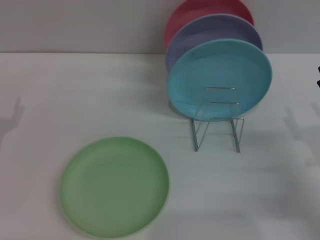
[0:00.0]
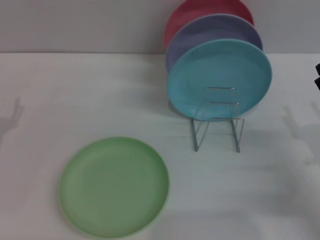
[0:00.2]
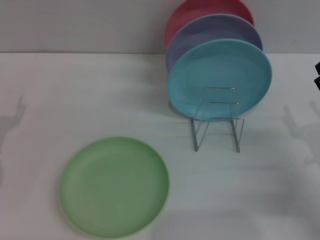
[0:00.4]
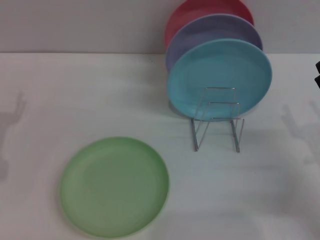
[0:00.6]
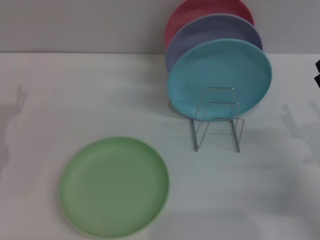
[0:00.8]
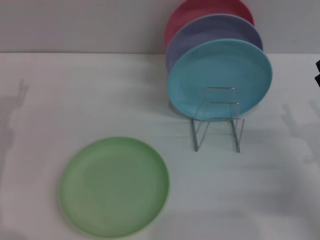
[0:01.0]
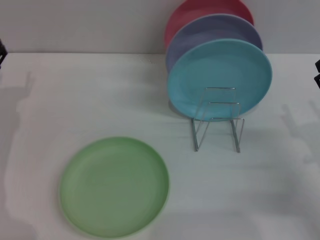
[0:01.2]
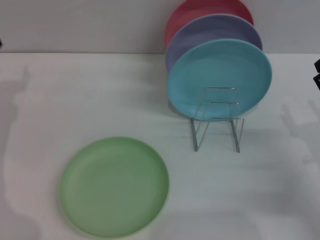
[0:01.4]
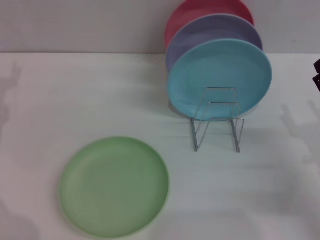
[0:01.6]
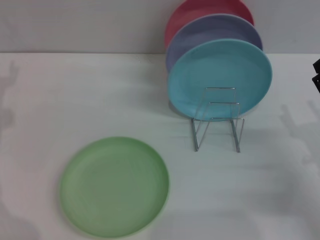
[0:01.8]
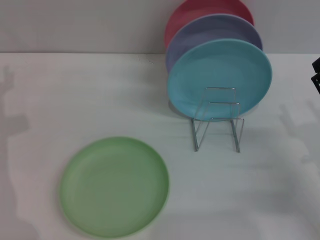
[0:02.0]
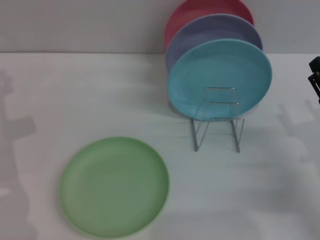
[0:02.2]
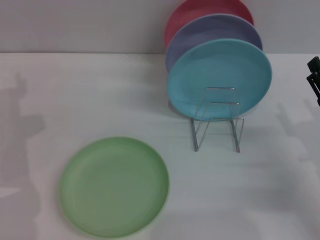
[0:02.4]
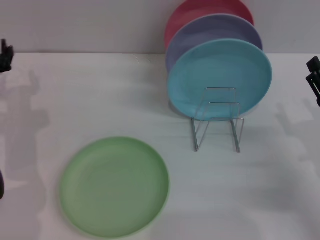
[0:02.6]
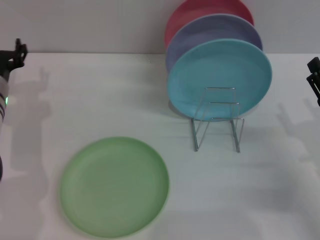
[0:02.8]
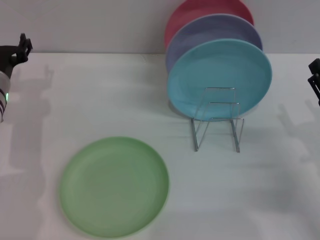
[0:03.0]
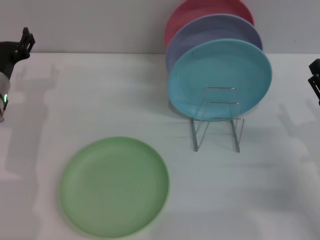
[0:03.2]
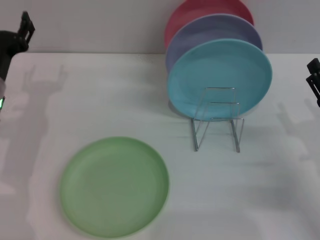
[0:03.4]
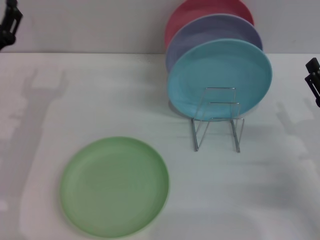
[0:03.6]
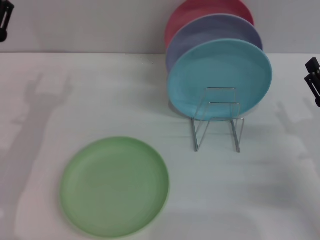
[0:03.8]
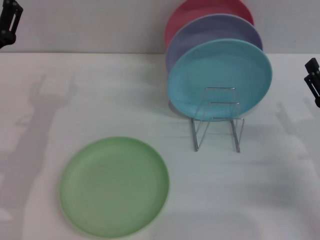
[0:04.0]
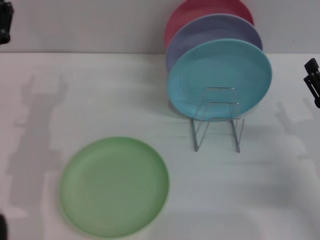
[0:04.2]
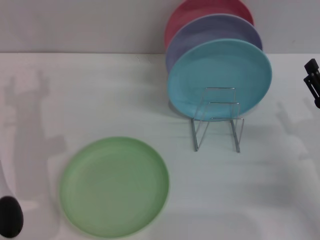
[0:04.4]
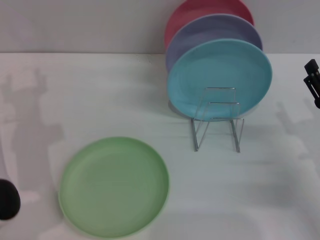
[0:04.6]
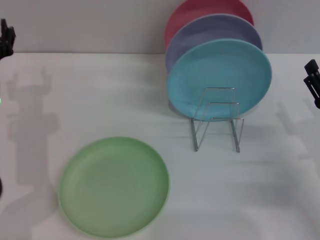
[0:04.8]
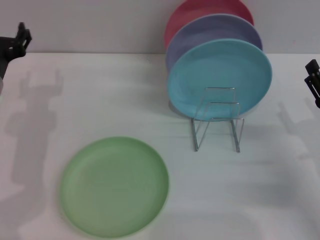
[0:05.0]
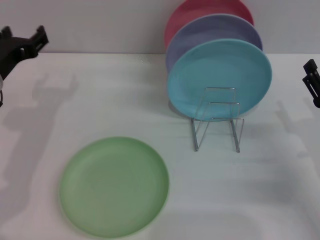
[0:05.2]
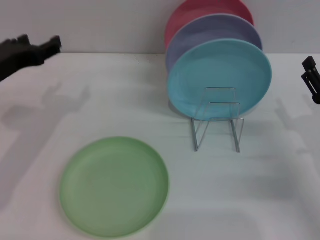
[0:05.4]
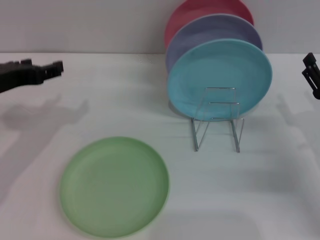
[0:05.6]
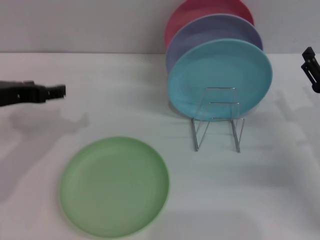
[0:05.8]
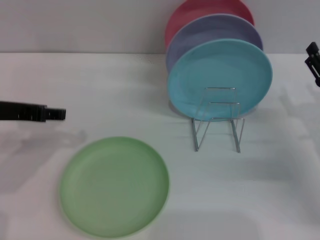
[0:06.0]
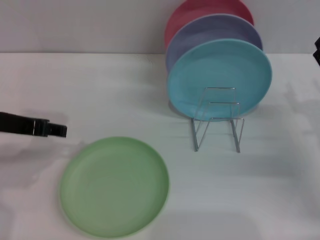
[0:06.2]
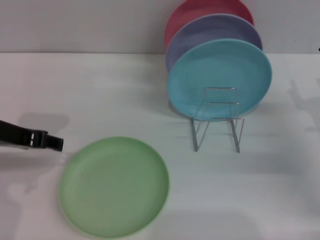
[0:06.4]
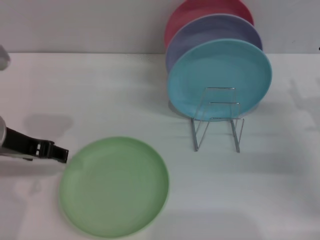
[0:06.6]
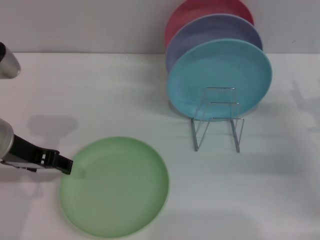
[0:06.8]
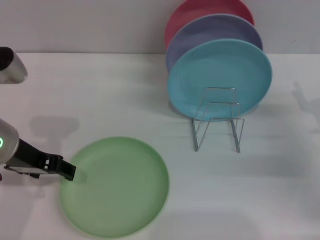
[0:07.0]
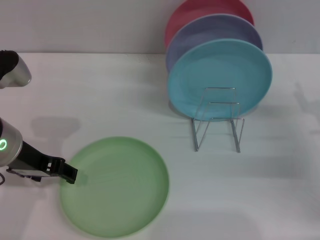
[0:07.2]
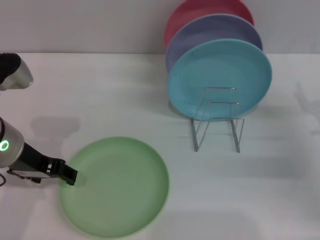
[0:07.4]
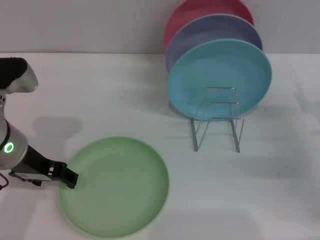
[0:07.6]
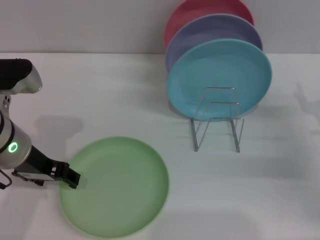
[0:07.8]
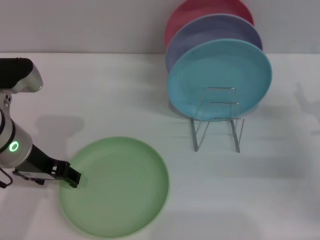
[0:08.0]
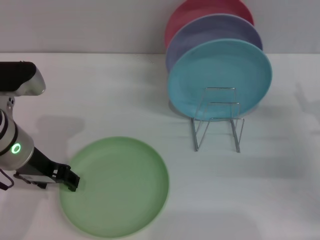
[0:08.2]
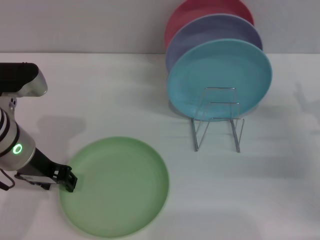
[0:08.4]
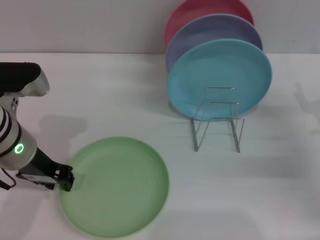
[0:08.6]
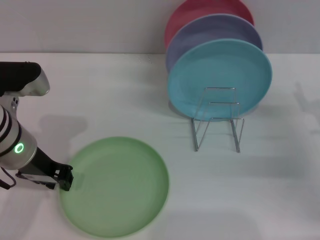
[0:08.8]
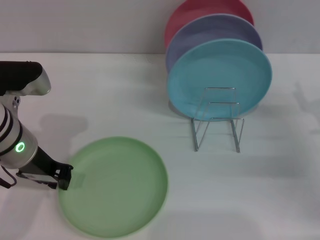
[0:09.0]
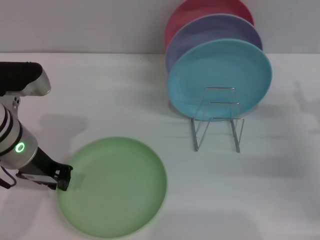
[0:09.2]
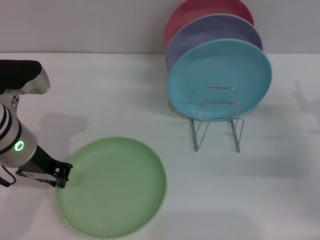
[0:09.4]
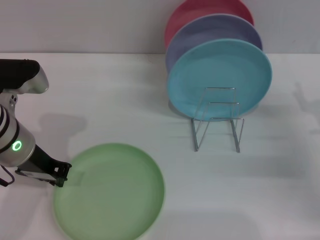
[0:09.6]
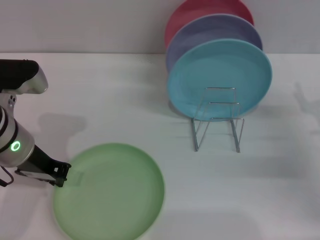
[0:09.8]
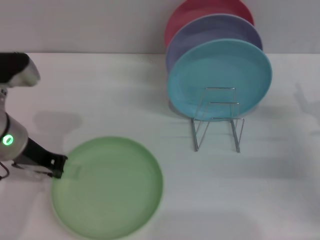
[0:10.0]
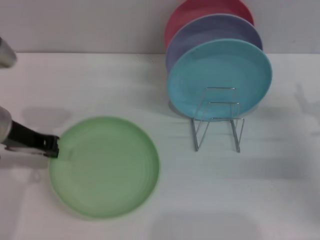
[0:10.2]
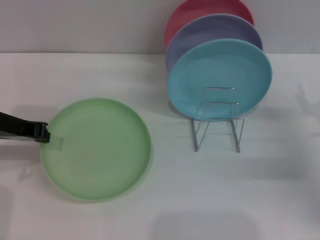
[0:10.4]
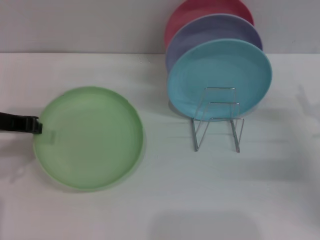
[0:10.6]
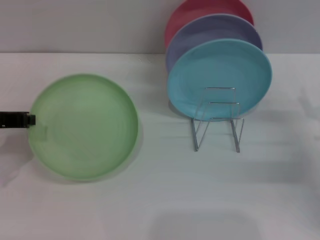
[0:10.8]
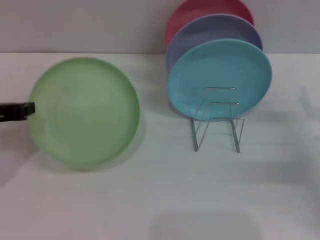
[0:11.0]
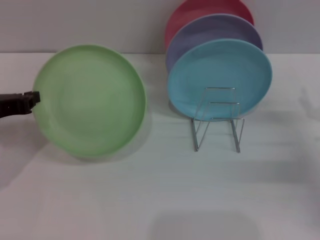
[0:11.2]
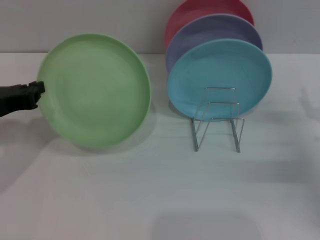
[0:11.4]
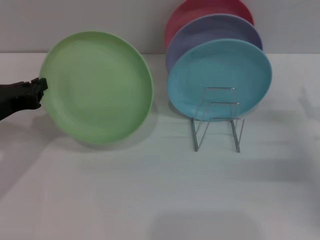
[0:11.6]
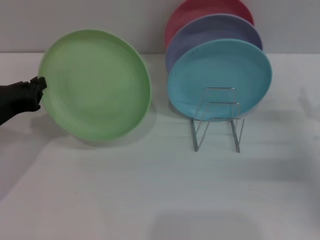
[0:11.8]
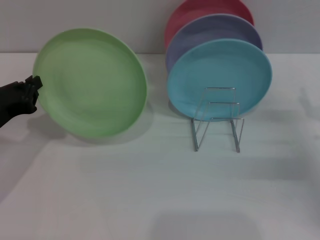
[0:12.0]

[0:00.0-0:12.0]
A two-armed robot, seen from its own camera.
Task of the whole recording: Grip the plate with one hand, pass it to the other, then set it on the shelf.
Step, 0:00.0 to 0:11.2: Pick up the plate with the left gripper.
0:01.6 to 0:03.0: The left gripper goes about 5 cm to the right.
0:03.0 to 0:04.4: The left gripper travels backward by some 5 cm.
0:04.4 to 0:06.0: The left gripper travels upward by some 10 cm.
0:06.0 to 0:07.6: The left gripper shifts by roughly 5 cm.
0:07.6 to 0:09.0: The left gripper closes up.
0:09.0 to 0:10.4: The left gripper goes about 5 cm to the left, and closes up.
0:10.4 to 0:12.0: The left gripper goes approximately 10 cm downward.

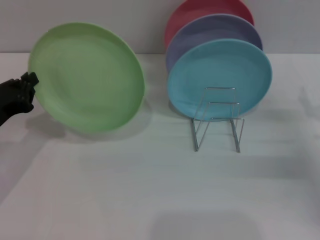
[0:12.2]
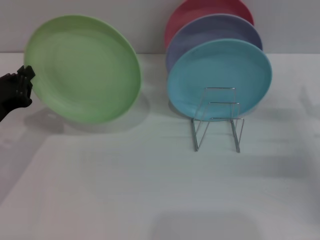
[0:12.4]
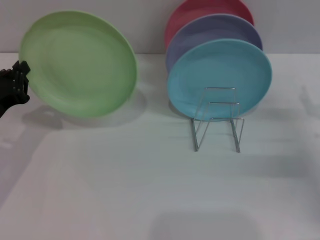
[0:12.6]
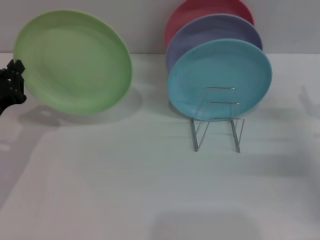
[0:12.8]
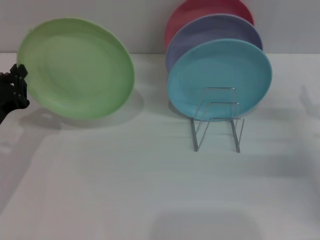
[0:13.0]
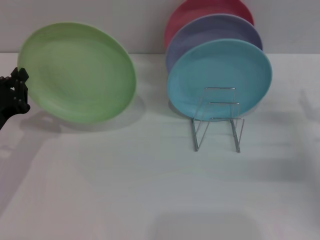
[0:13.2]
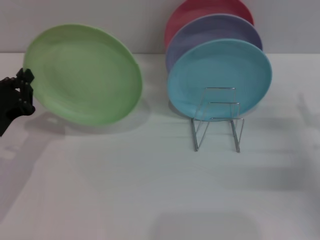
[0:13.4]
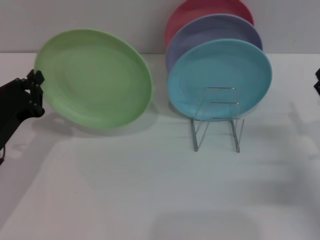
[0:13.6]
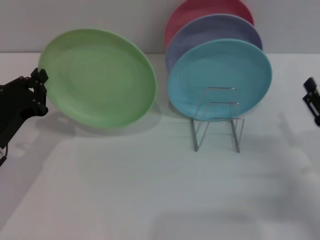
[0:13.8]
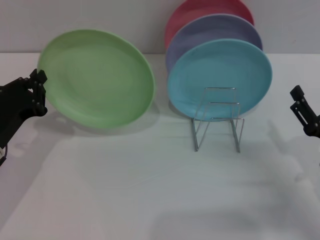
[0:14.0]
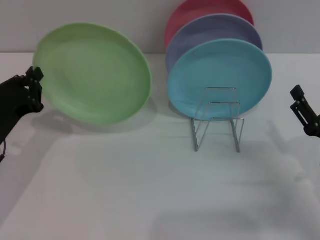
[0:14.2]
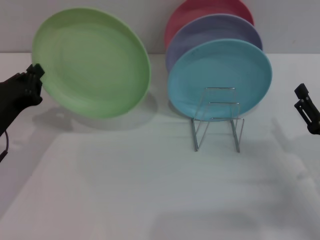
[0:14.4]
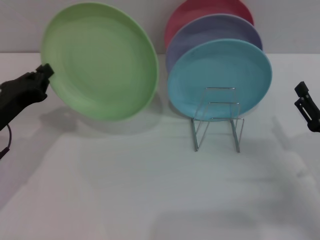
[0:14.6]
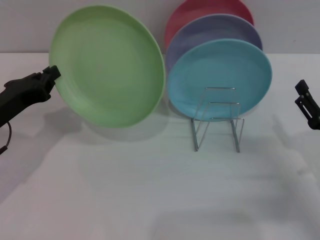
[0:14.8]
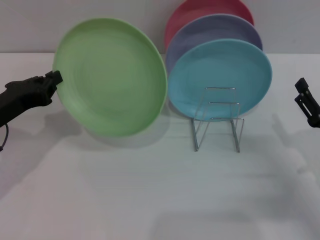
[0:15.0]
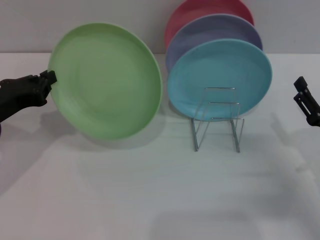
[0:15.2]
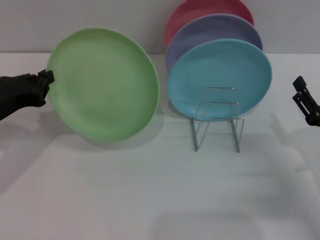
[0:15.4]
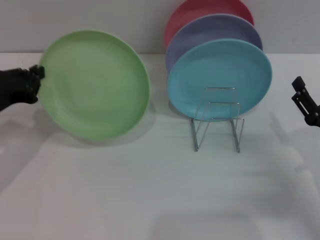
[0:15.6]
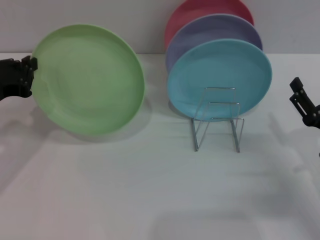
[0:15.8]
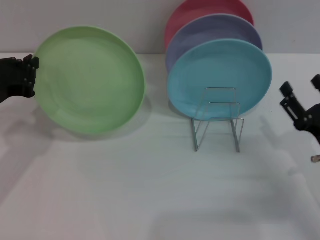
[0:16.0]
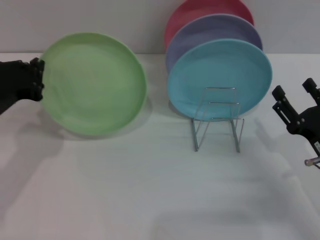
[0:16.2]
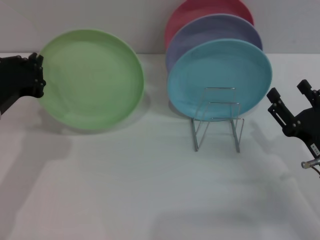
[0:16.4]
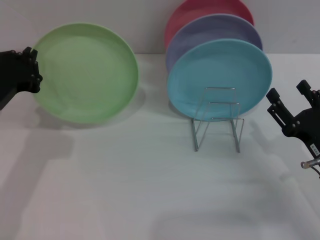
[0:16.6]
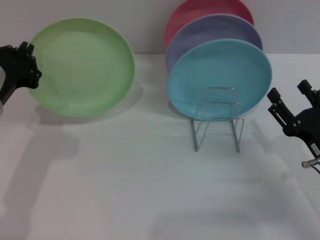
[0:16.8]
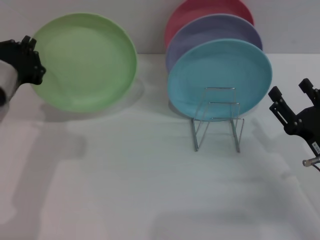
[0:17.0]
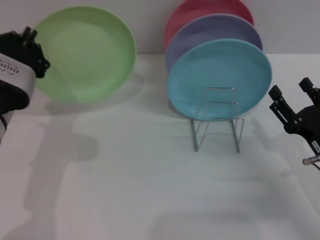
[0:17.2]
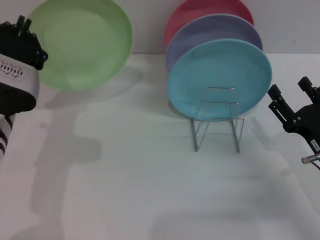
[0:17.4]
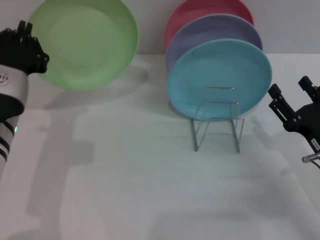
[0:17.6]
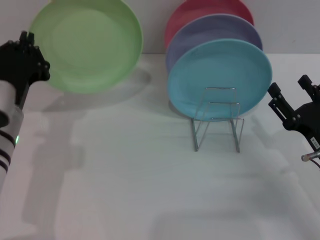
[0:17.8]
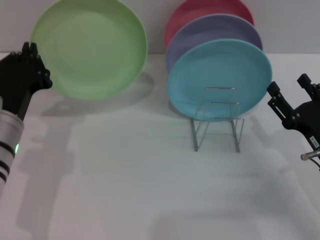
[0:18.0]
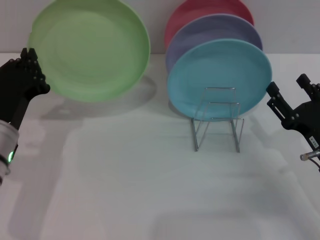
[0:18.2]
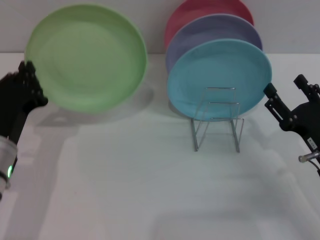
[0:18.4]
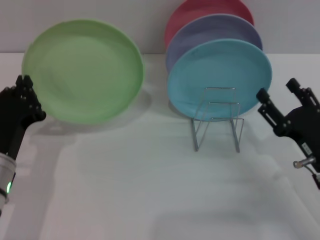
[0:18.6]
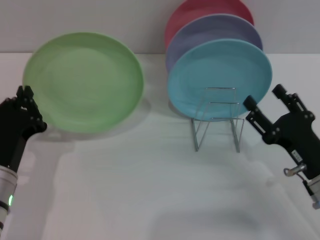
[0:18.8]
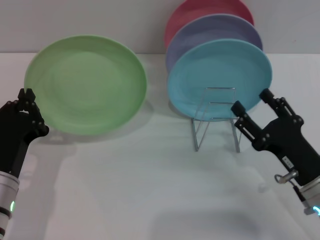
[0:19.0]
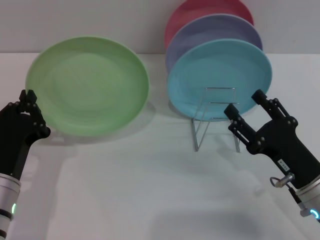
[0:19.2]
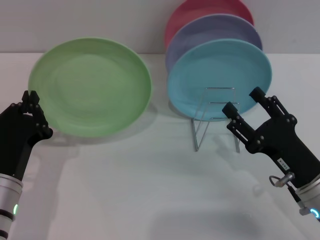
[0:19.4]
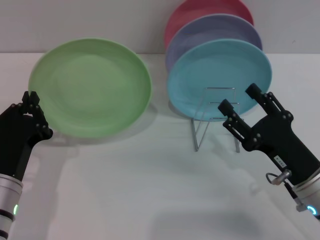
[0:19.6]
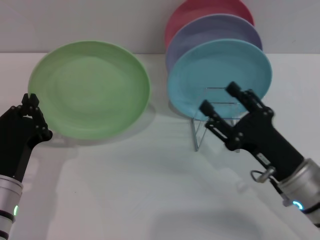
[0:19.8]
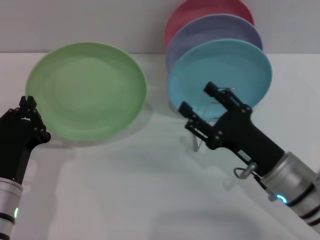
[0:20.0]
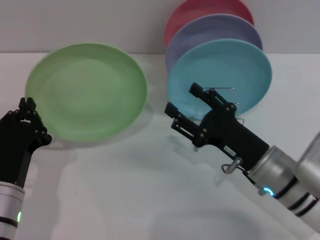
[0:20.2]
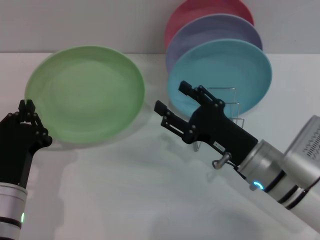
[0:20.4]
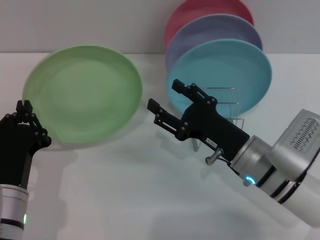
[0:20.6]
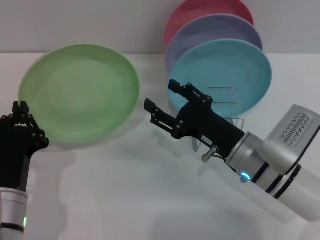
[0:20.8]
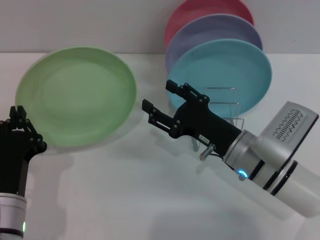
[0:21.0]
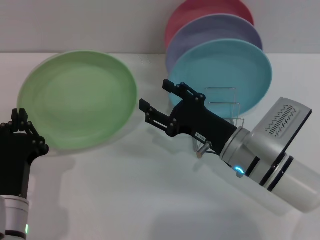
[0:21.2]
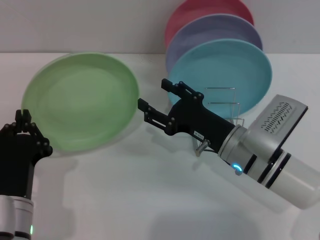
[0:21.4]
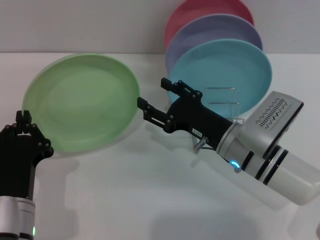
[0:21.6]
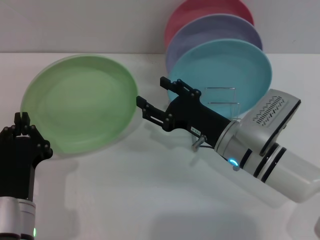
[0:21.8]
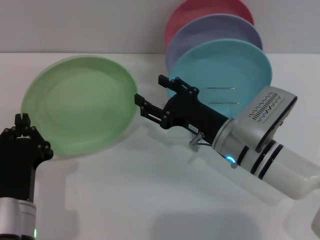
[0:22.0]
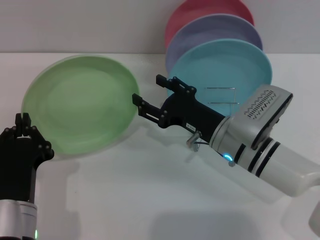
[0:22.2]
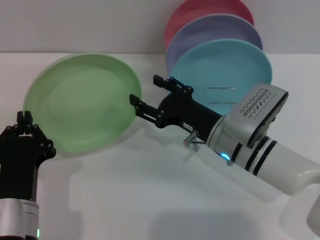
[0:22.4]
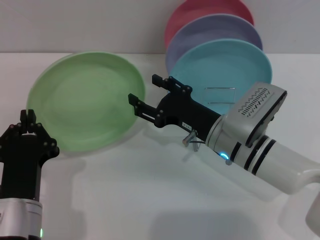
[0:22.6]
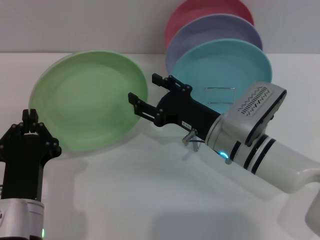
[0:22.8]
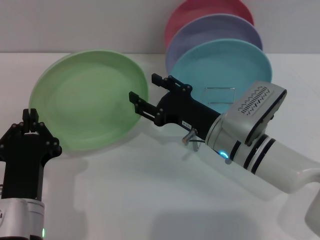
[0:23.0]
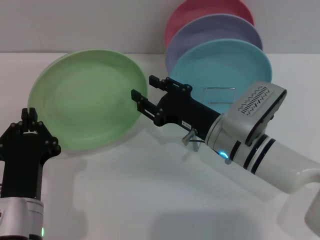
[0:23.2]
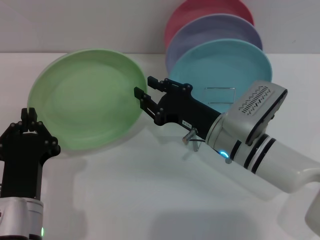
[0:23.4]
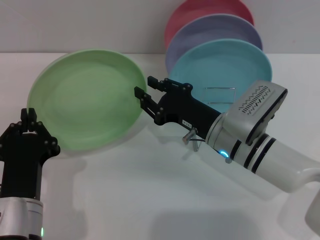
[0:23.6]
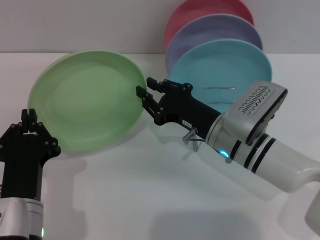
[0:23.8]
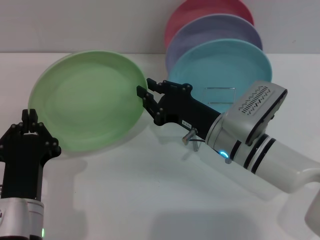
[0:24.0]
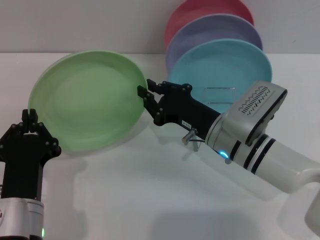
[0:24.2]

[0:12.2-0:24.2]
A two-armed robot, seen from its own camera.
Task of the whole recording: Grip the plate with one hand, pass it to the other, then set it on the shelf.
0:12.2 to 0:13.8: The right gripper goes about 5 cm backward.
0:13.8 to 0:15.2: The left gripper moves upward, roughly 5 cm.
0:16.6 to 0:18.2: The left gripper changes place by roughly 5 cm.
0:18.2 to 0:19.8: The right gripper is displaced to the left by roughly 5 cm. The left gripper is displaced backward by about 5 cm.
0:19.8 to 0:21.2: The right gripper travels to the left and forward by roughly 10 cm.
0:21.2 to 0:22.6: The grippers make only small movements.
0:22.6 to 0:24.2: The right gripper closes.
